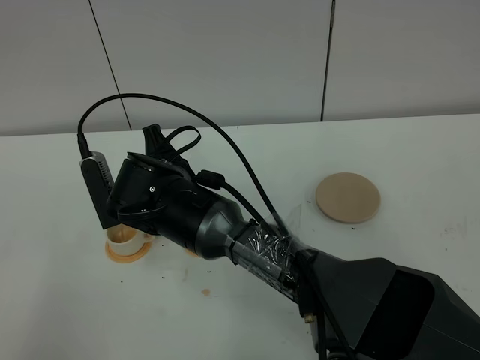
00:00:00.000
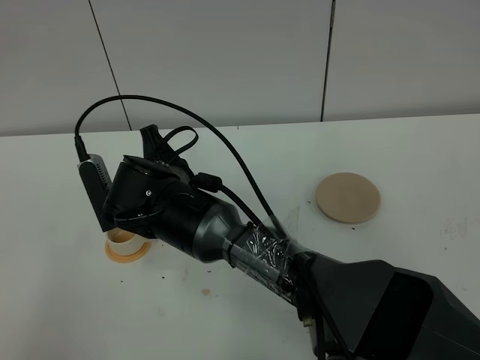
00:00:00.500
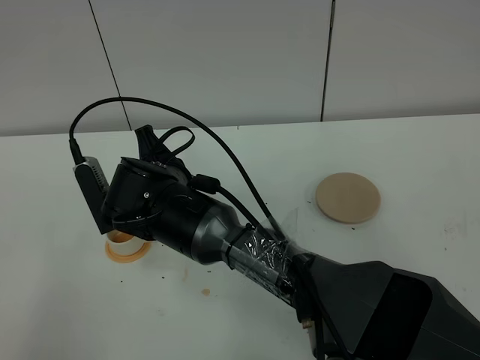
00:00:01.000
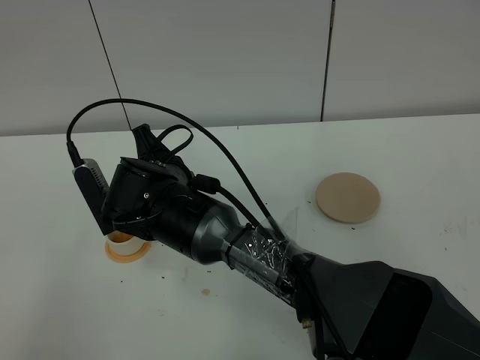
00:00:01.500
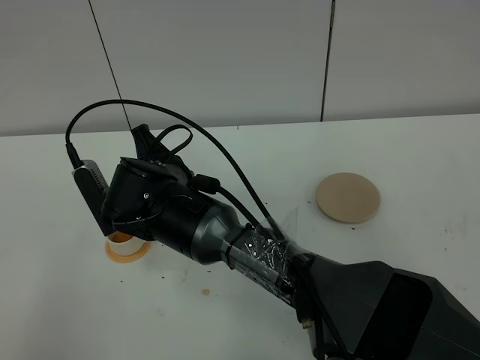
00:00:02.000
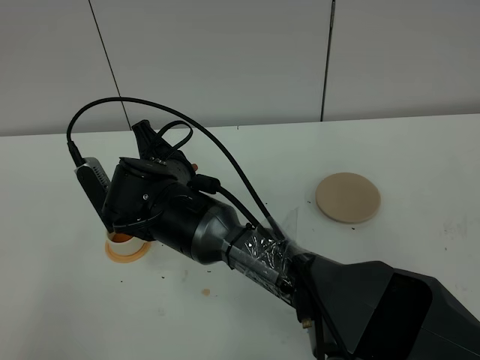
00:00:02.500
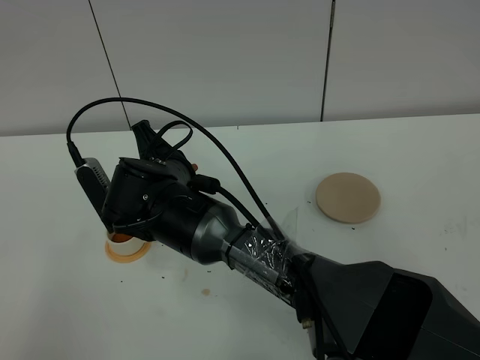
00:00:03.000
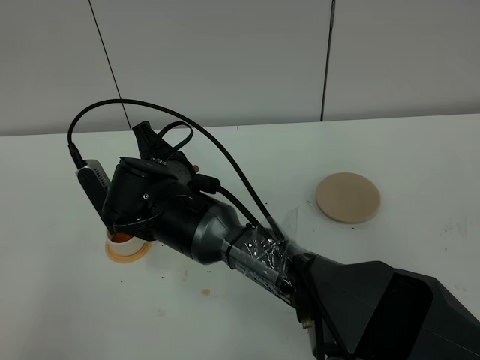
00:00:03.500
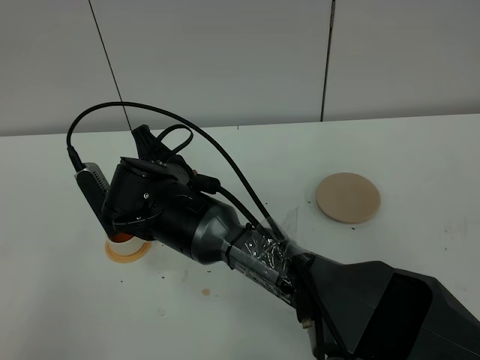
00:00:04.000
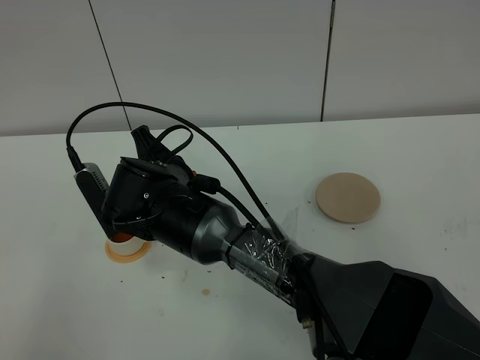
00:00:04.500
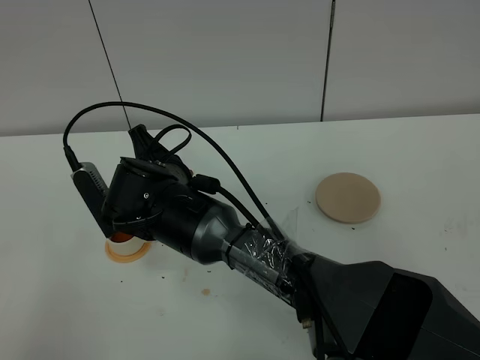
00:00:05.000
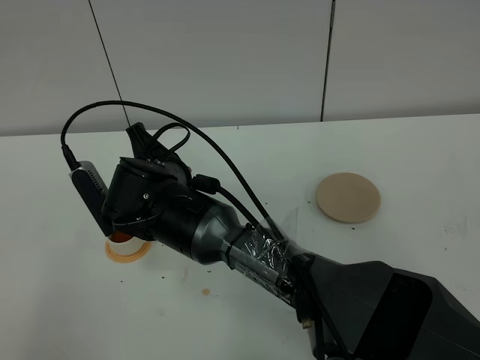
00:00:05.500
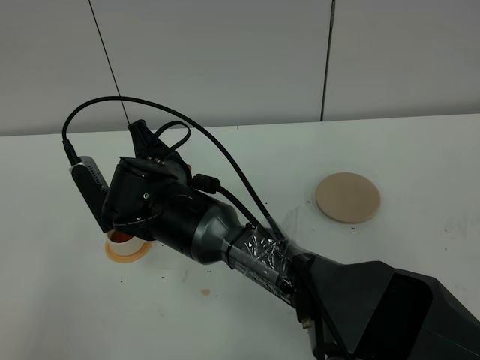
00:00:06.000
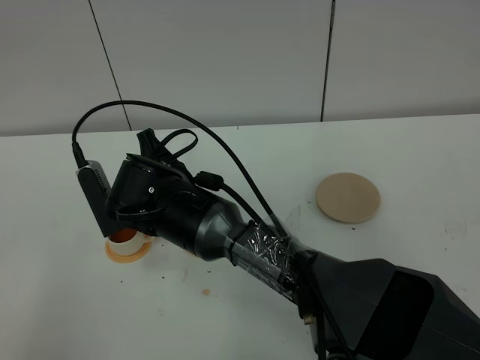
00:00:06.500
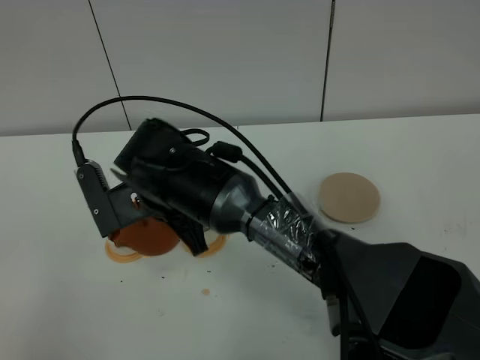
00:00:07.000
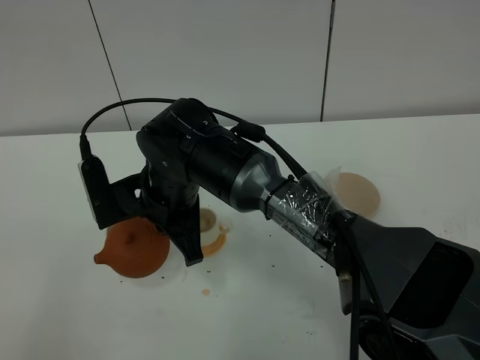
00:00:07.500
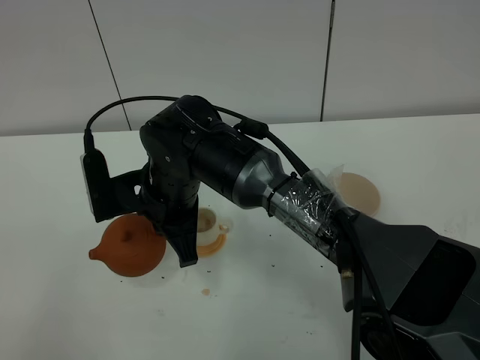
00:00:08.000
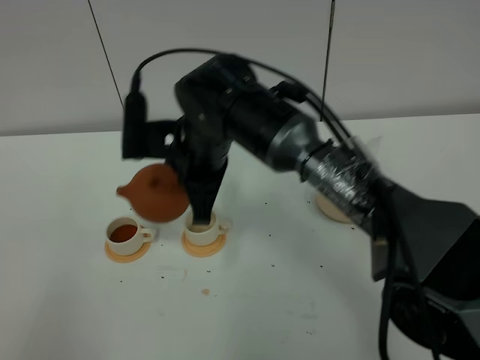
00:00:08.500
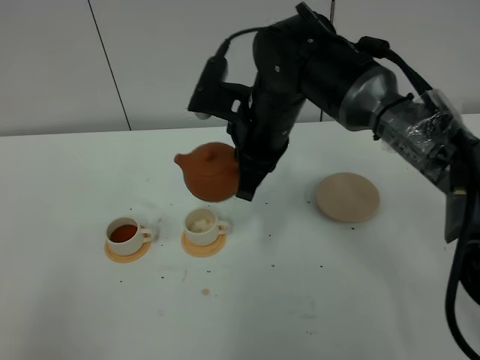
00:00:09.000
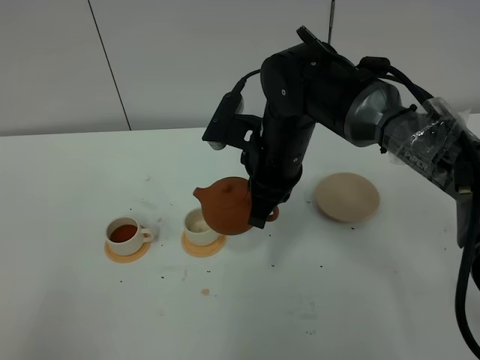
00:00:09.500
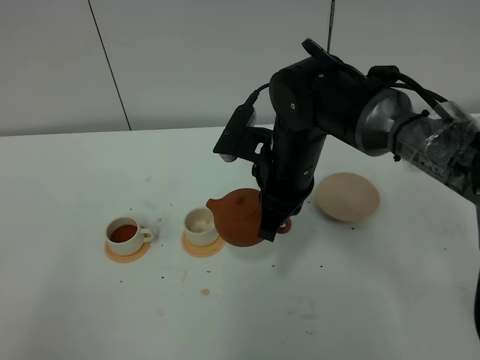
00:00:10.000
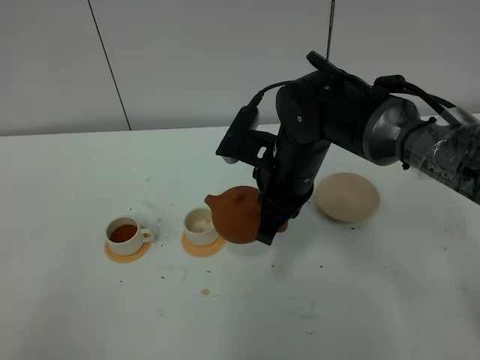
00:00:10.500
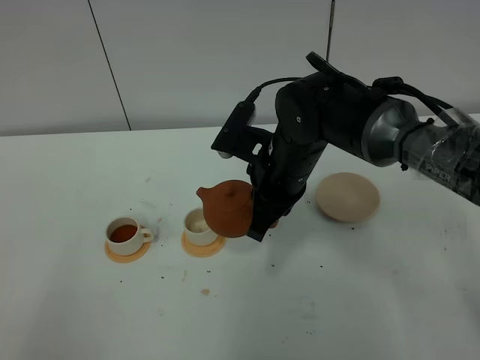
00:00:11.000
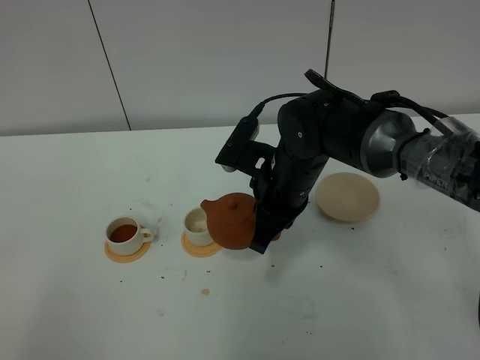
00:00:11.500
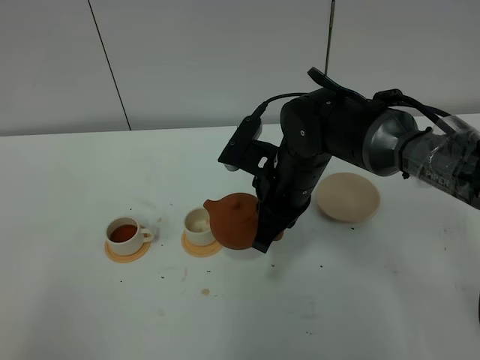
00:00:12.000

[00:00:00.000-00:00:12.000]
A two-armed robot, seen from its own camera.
Task of the whole recording: grasp the brown teapot and pour the tea into the two white teacups one by one, put the brown teapot back in its original place.
00:00:00.000 to 00:00:02.000: The grippers move only a little.
00:00:02.000 to 00:00:06.000: Both grippers stay about where they are.
00:00:08.000 to 00:00:10.000: The right gripper travels to the right by about 15 cm.
00:00:10.000 to 00:00:12.000: There are only small adjustments of the grippers.

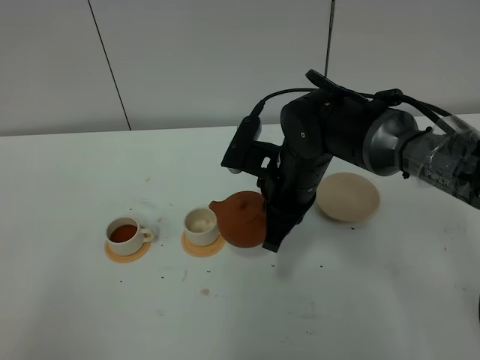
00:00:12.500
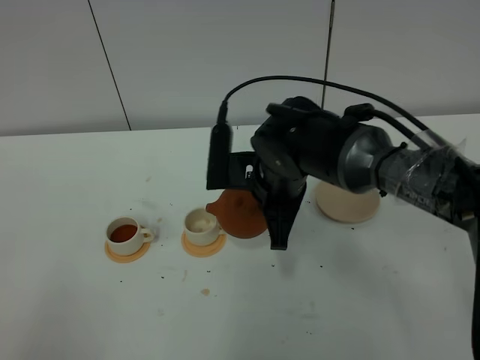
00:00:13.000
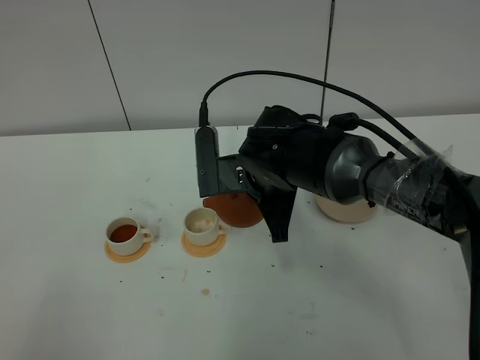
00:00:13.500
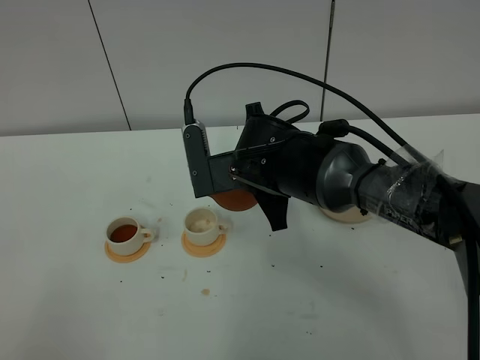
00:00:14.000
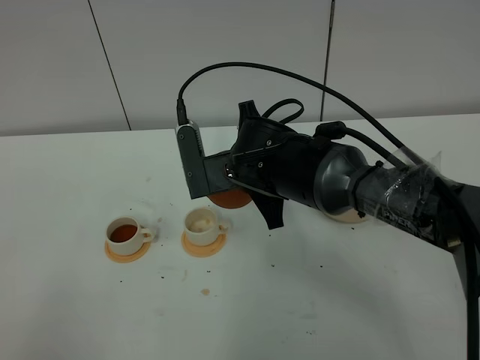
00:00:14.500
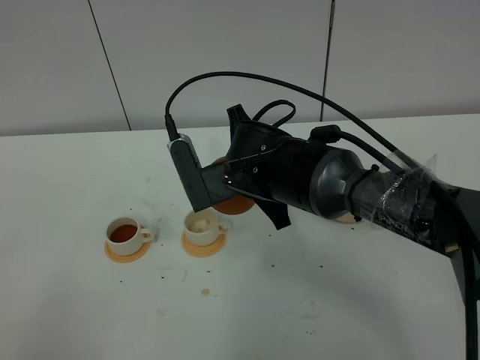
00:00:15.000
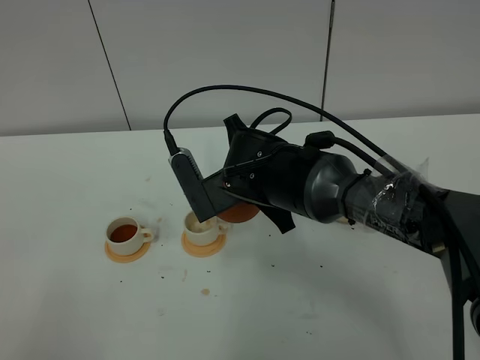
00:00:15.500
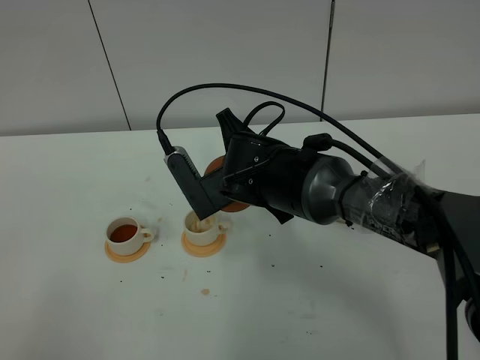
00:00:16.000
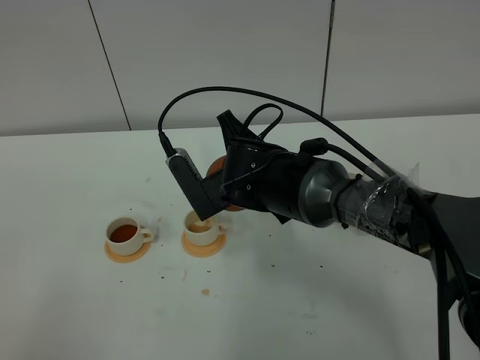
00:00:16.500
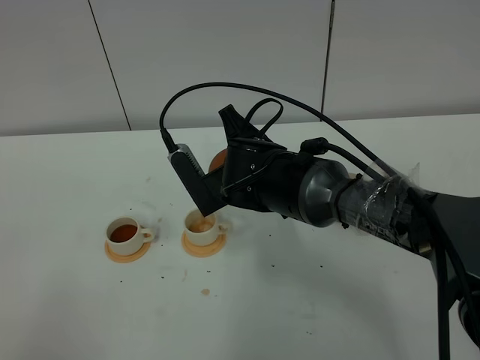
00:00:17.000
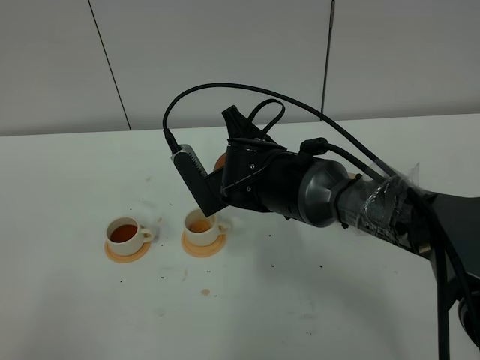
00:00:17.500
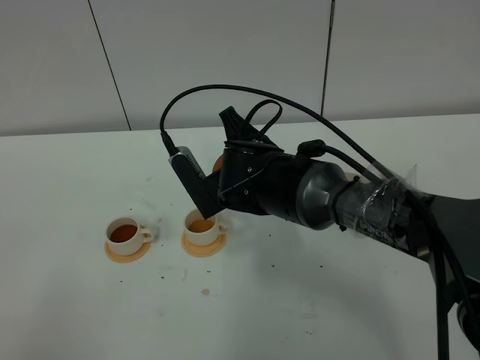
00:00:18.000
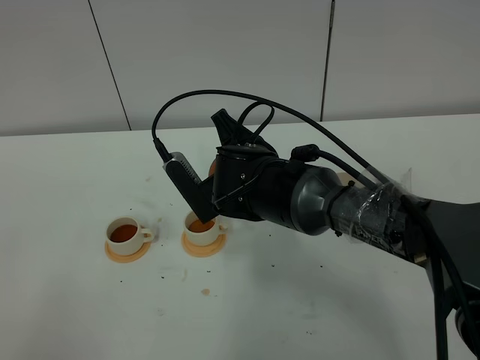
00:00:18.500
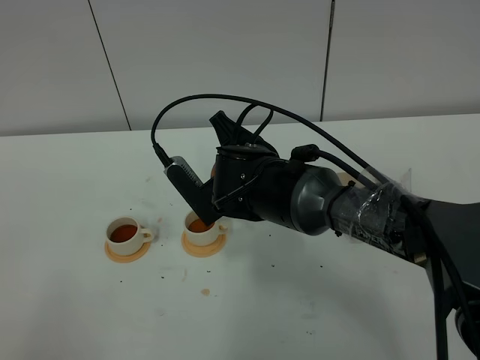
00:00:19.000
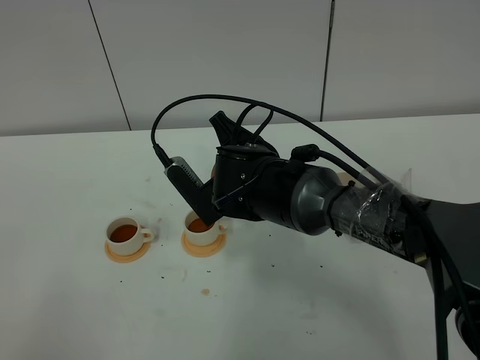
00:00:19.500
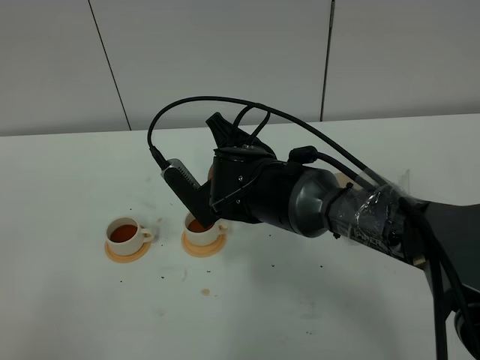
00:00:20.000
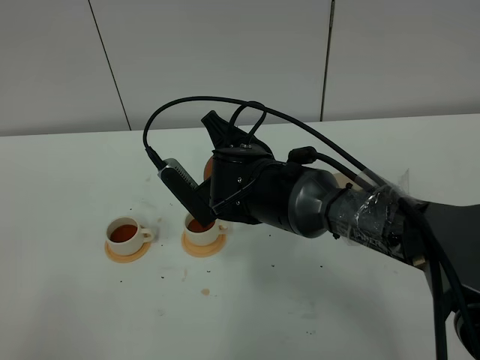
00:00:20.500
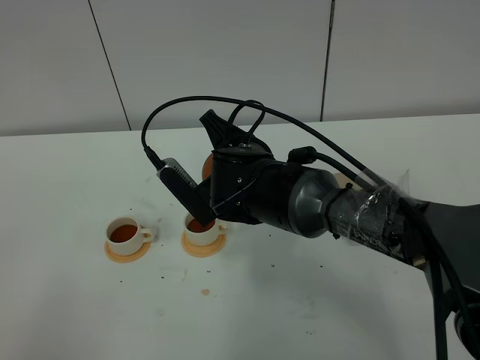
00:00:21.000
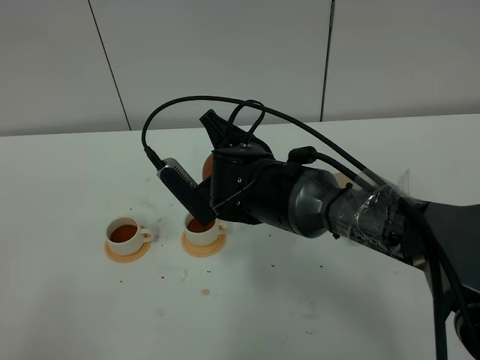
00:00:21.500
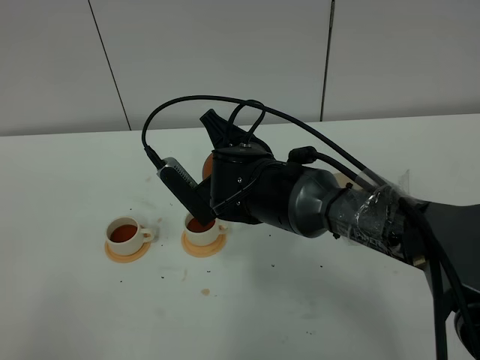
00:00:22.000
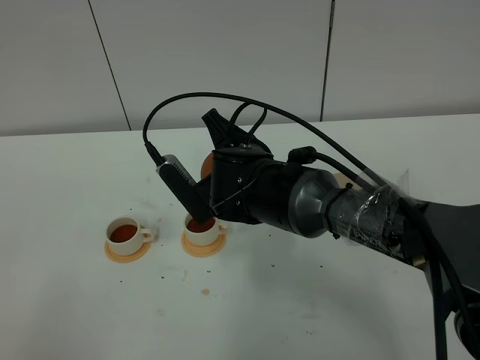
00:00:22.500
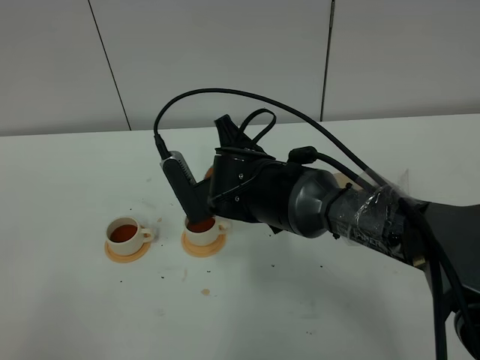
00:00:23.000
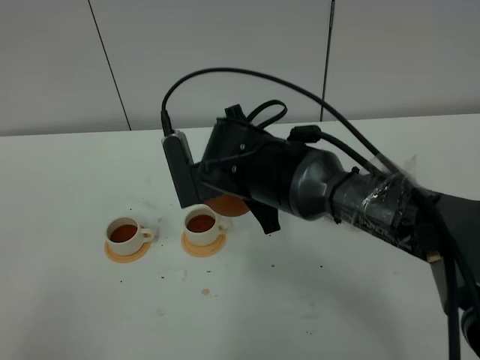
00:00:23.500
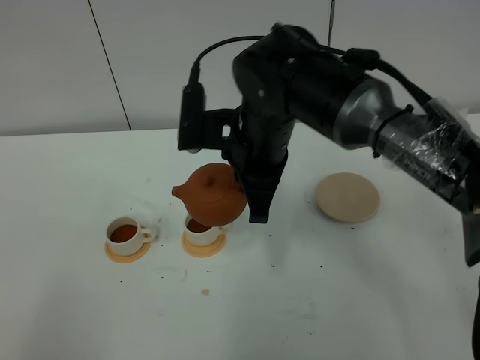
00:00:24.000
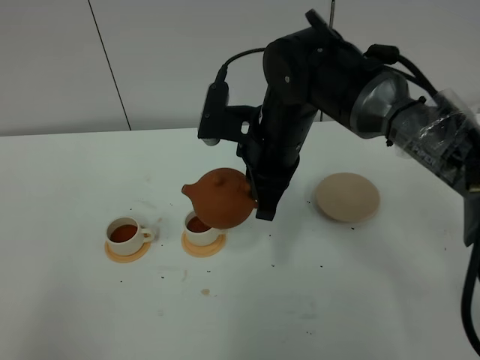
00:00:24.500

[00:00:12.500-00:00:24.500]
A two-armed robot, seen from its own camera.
Task of the whole recording: grasp the brown teapot and pour the tea into the two white teacups one by one, put the brown teapot back in its original place.
Step, 00:00:12.500 to 00:00:23.500: Pour tea into the teacup with the right gripper.
00:00:12.500 to 00:00:14.500: The right gripper shifts by roughly 5 cm.
00:00:14.500 to 00:00:16.500: The grippers make only small movements.
00:00:16.500 to 00:00:20.500: The grippers move only a little.
00:00:20.500 to 00:00:22.500: Both grippers stay about where they are.
00:00:22.500 to 00:00:24.500: The right gripper moves about 5 cm.

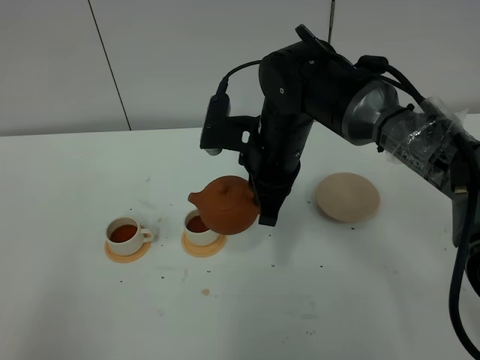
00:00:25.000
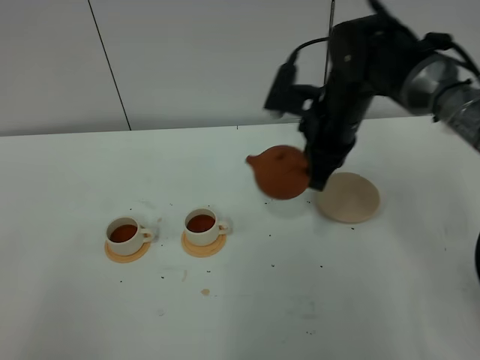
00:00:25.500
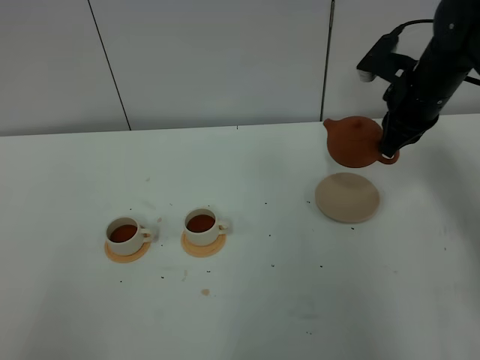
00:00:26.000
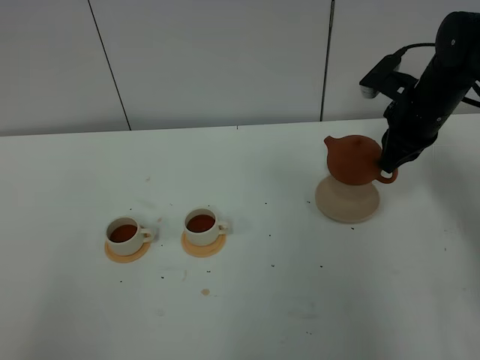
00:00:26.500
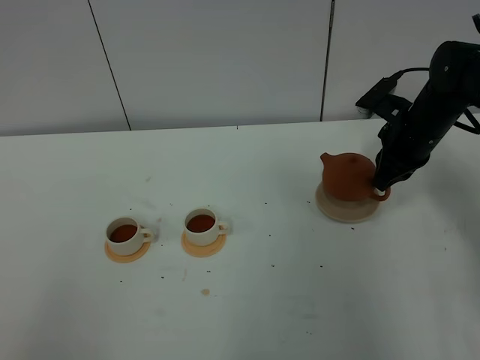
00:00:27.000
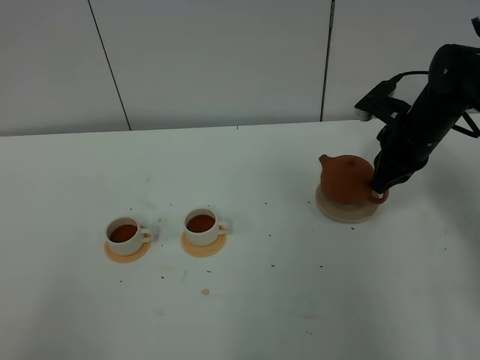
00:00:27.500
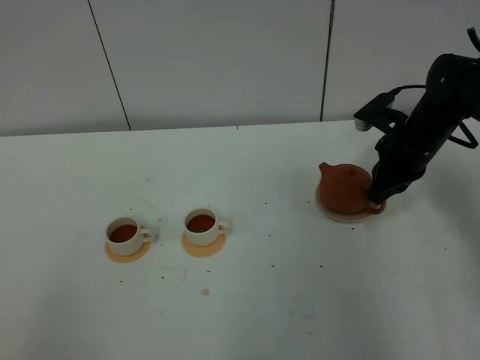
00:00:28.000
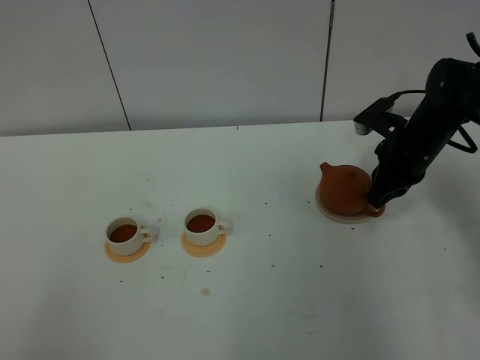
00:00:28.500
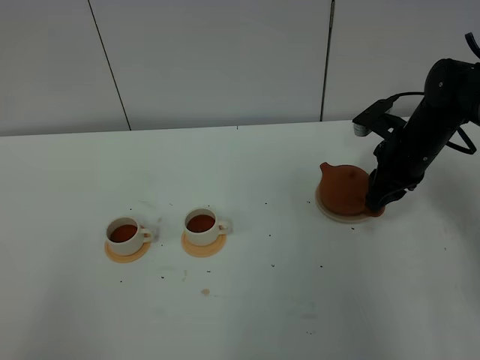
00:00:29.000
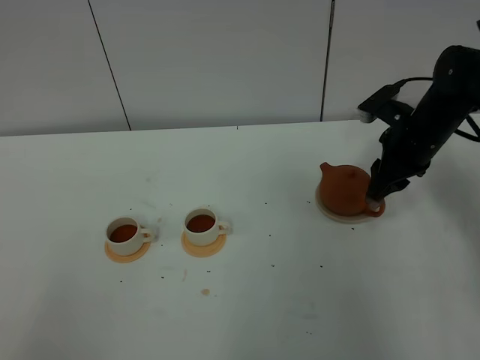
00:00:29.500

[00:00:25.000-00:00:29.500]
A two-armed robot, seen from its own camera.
Task of the whole recording: grasp the brown teapot and pour the tea into the two white teacups one by one, put the brown teapot back in its original place.
00:00:25.000 to 00:00:27.000: The right gripper shifts about 20 cm to the right and forward.
00:00:27.000 to 00:00:29.500: The right gripper opens up.
